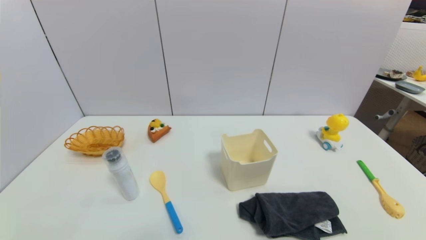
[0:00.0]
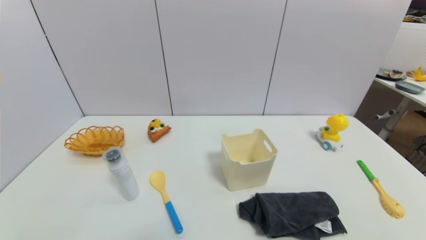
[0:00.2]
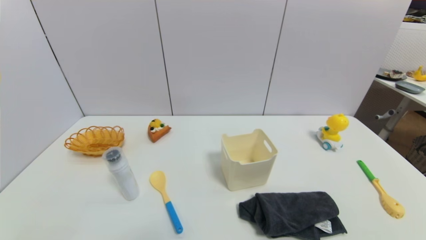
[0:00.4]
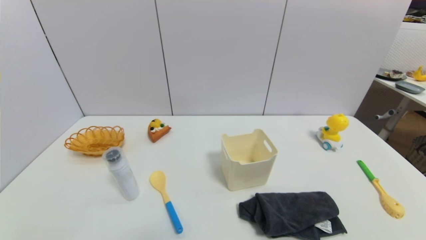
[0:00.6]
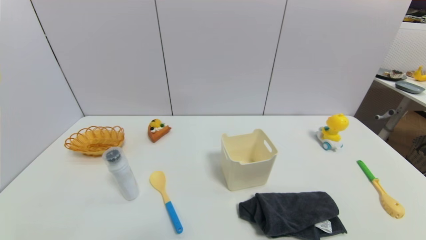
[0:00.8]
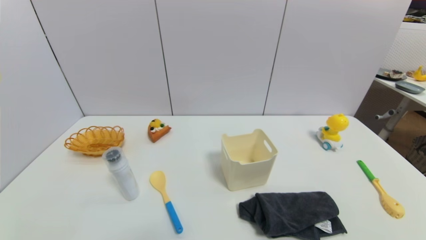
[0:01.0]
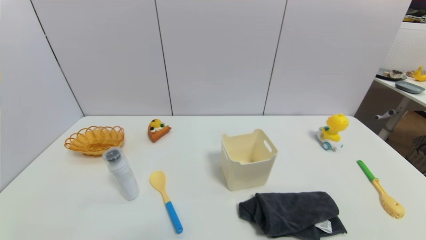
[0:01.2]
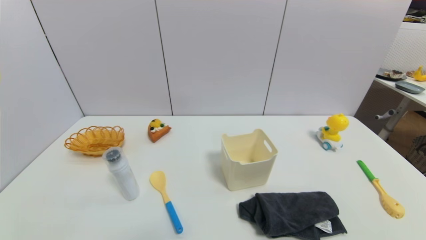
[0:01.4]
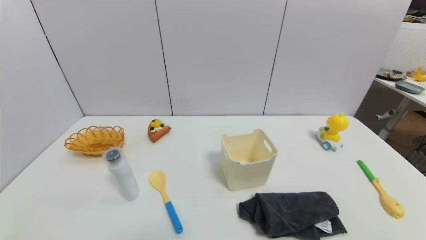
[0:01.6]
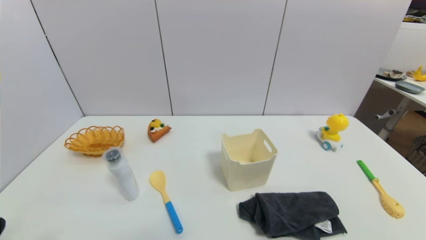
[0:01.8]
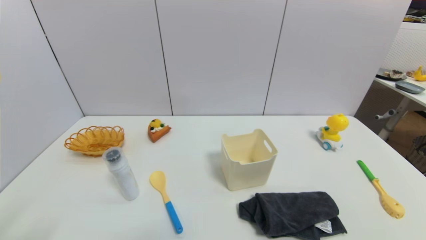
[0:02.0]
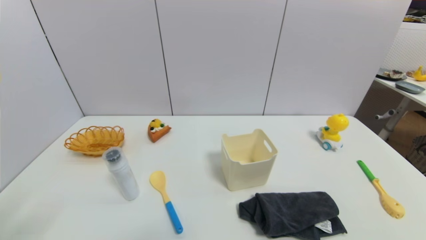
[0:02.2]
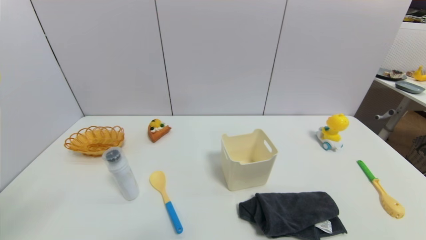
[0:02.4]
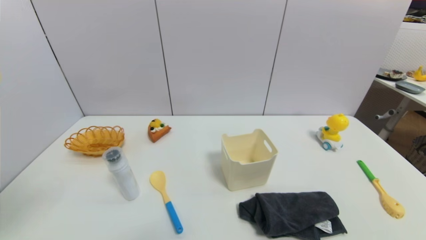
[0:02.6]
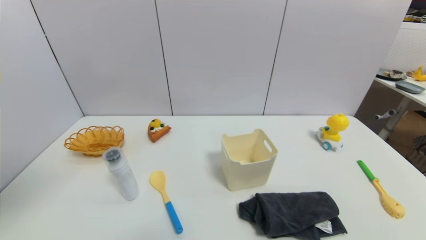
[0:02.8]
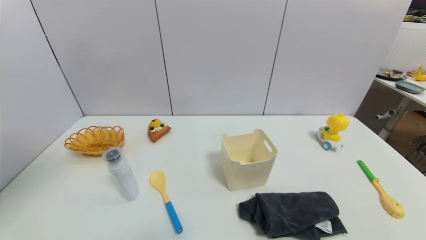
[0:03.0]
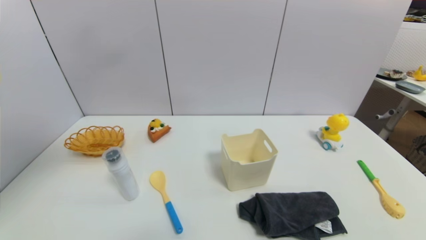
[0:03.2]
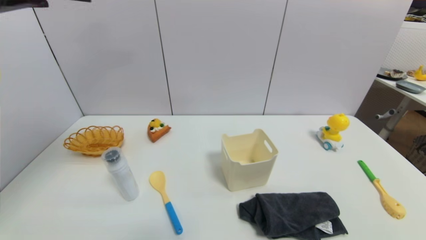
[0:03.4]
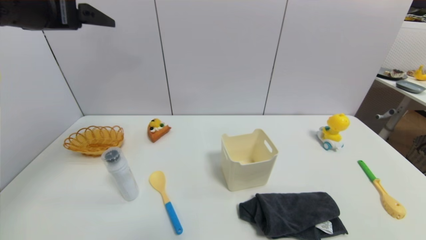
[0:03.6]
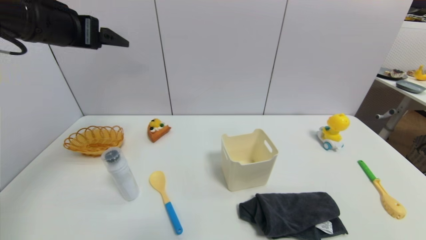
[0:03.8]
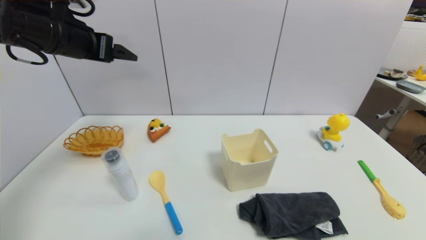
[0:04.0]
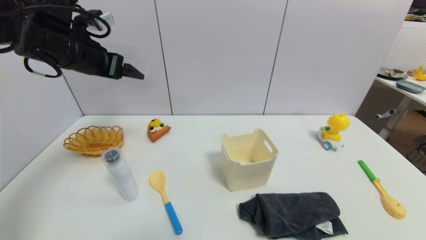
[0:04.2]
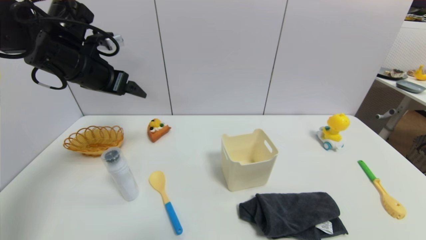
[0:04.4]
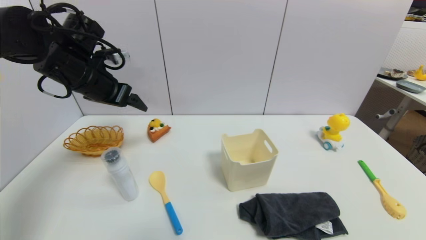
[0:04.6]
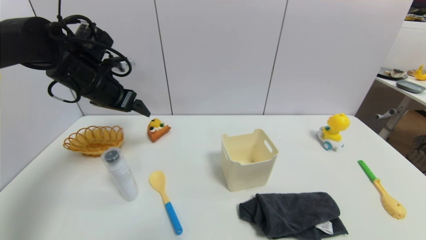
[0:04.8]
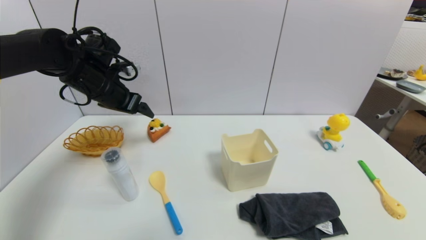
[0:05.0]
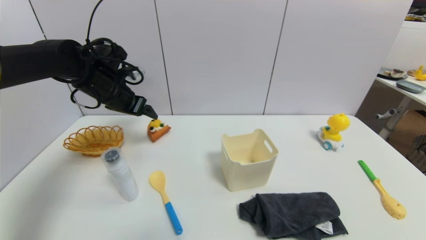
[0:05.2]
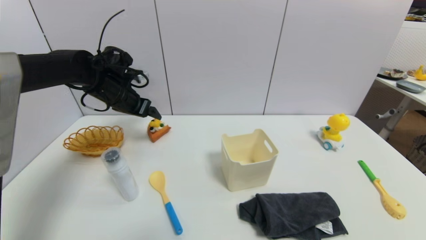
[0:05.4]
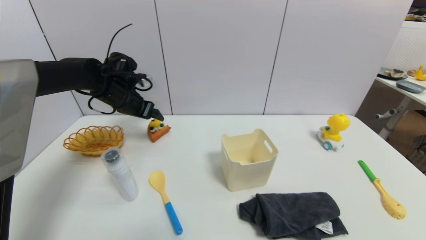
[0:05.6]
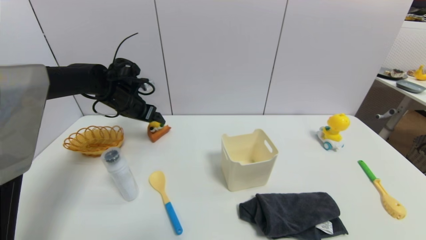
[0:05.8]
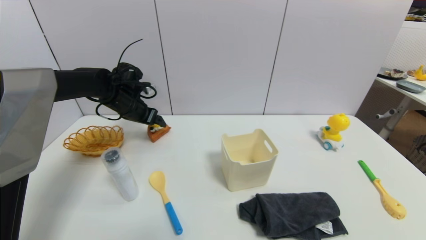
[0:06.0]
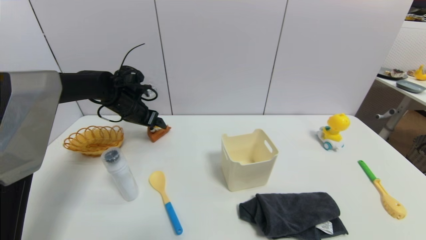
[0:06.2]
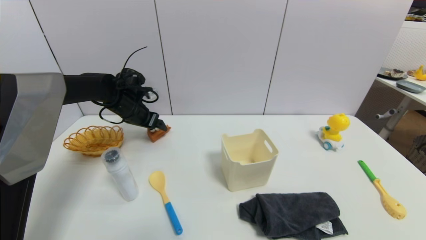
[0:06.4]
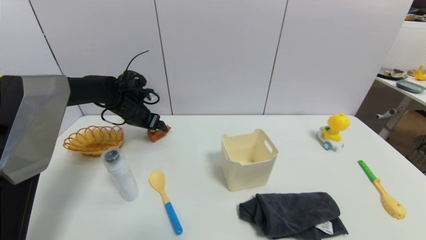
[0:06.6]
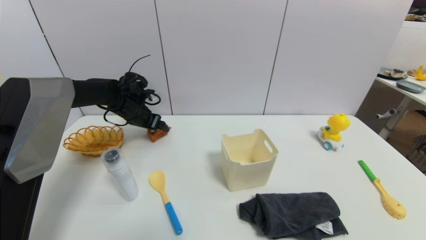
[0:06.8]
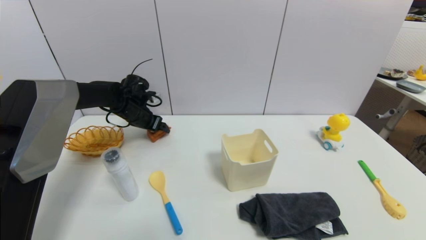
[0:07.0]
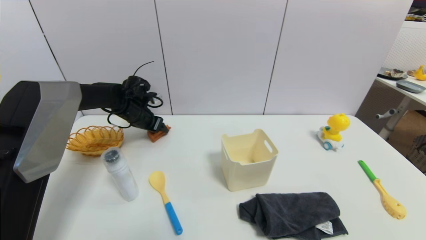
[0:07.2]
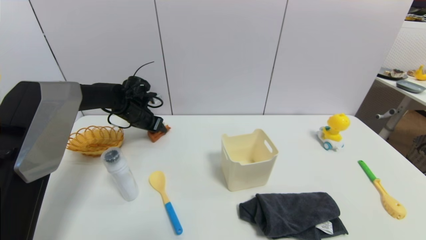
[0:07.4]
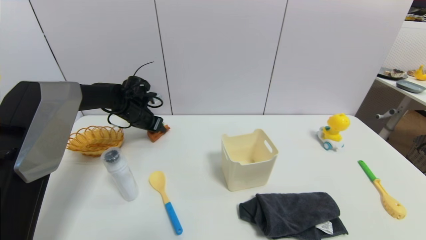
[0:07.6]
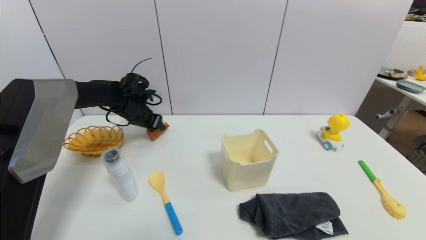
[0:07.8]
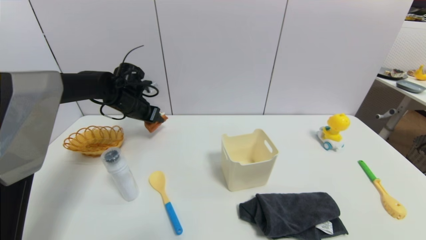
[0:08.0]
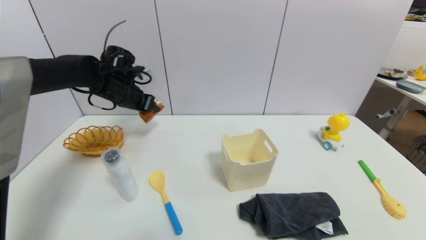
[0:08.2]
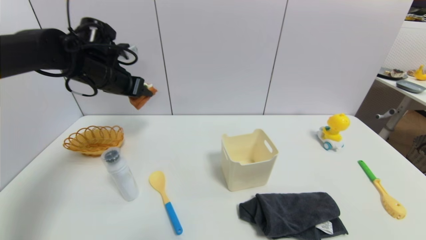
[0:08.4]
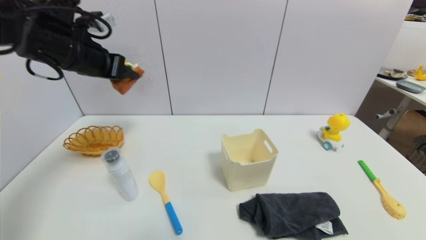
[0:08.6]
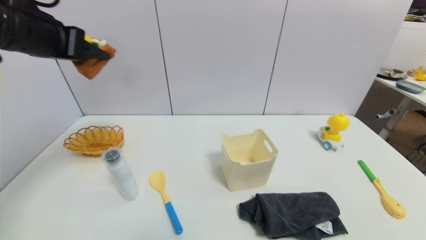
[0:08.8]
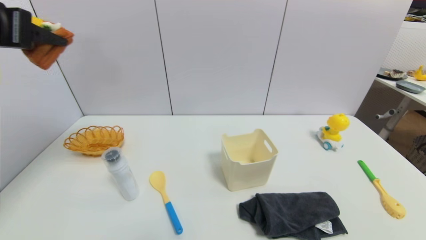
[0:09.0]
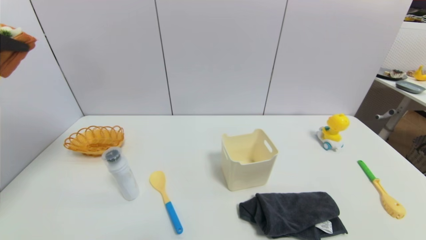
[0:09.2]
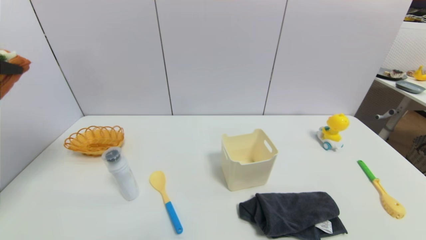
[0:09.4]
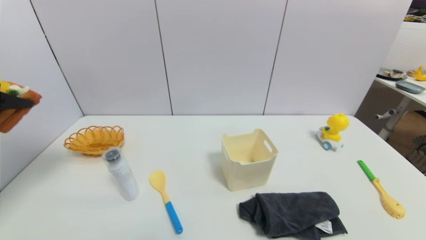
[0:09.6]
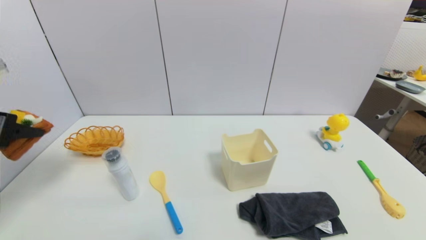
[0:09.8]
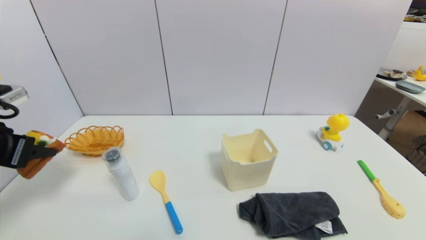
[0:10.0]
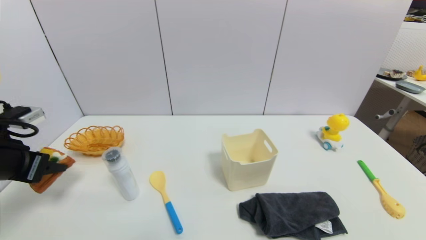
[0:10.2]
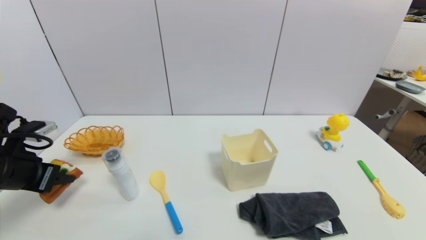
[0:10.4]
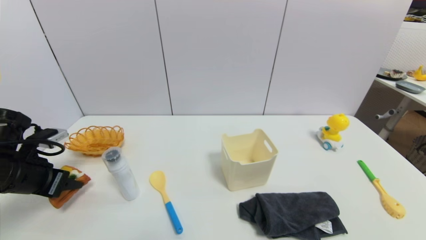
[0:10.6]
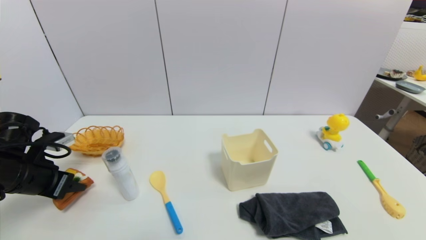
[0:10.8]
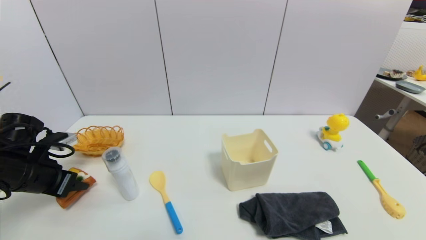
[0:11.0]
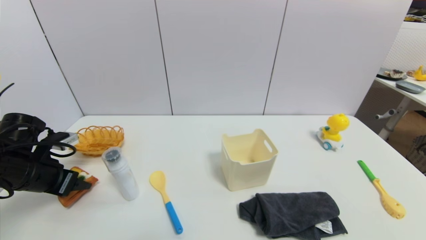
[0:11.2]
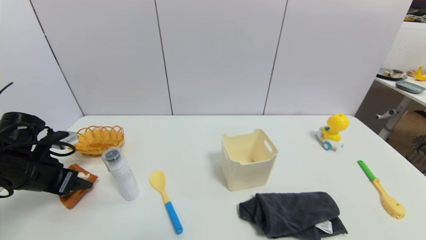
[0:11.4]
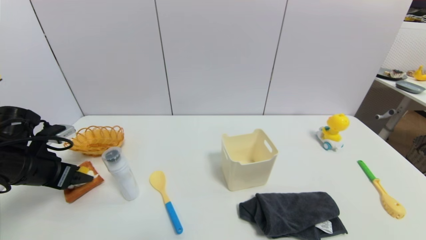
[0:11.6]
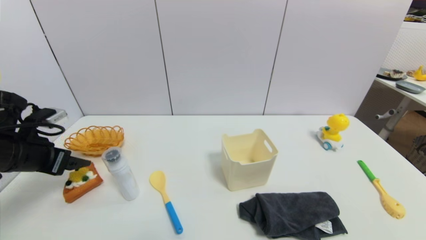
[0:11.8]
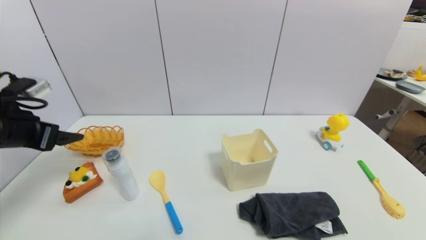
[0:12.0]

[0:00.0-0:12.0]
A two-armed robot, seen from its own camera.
Step, 0:01.8 to 0:07.8: Grasp the pizza with left gripper.
Step, 0:08.0 to 0:11.6: Place the pizza on the table with left gripper.
0:01.6 to 0:03.0: The left gripper travels upward by approximately 30 cm.
0:03.0 to 0:04.4: The left gripper travels forward and downward by some 25 cm.
0:04.4 to 0:06.0: The left gripper moves downward and forward, some 15 cm.
0:06.0 to 0:07.6: The left gripper closes.
0:07.6 to 0:09.0: The left gripper shifts about 35 cm upward and backward.
0:09.0 to 0:10.4: The left gripper moves downward, some 20 cm.
0:10.4 to 0:12.0: The left gripper travels upward by about 5 cm, and opens up.

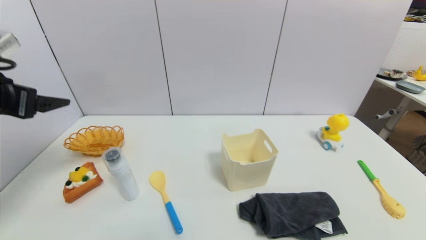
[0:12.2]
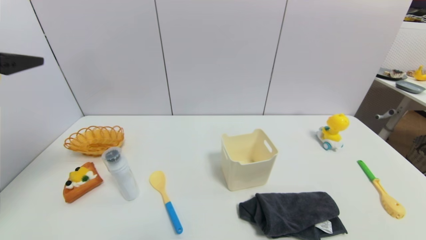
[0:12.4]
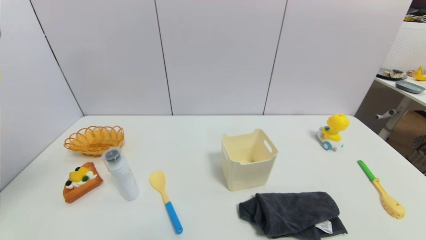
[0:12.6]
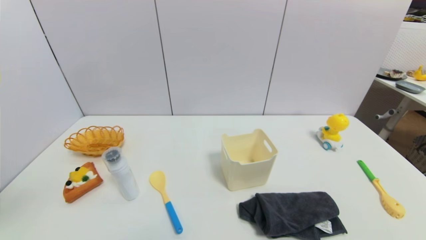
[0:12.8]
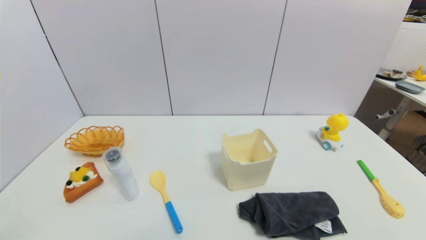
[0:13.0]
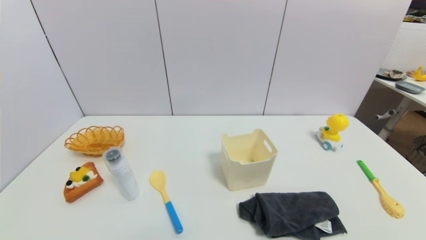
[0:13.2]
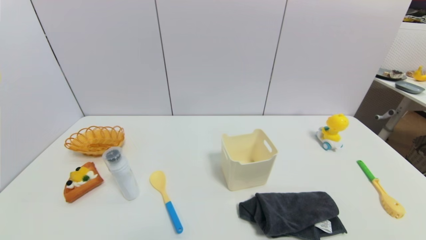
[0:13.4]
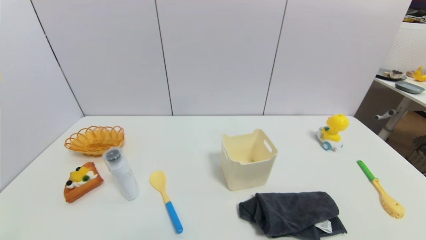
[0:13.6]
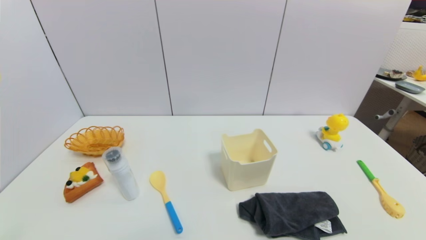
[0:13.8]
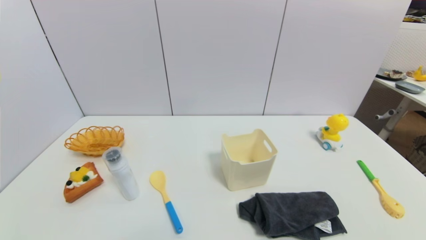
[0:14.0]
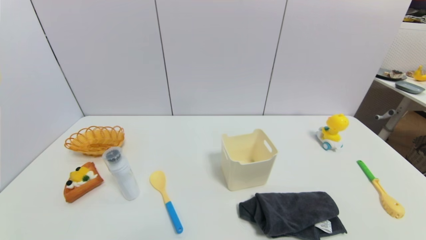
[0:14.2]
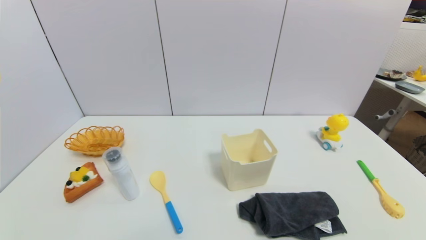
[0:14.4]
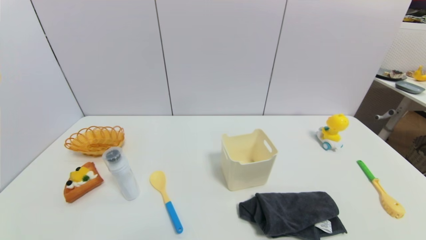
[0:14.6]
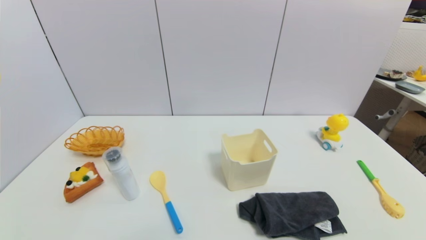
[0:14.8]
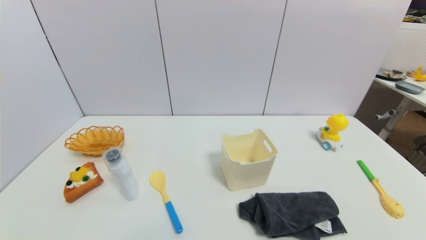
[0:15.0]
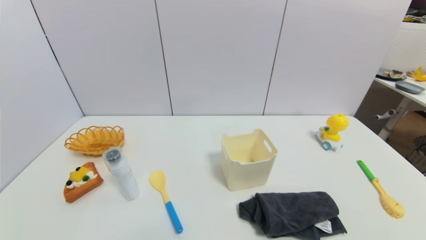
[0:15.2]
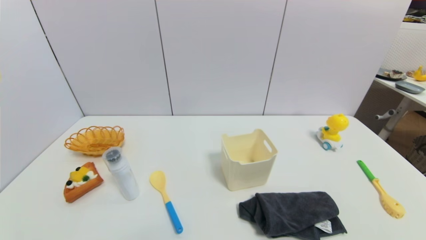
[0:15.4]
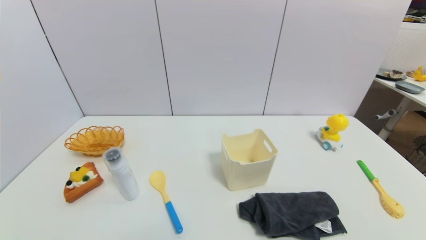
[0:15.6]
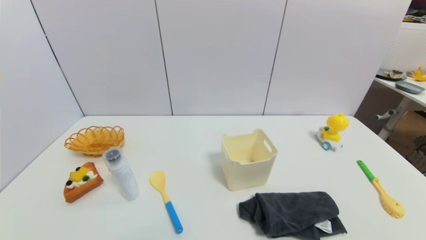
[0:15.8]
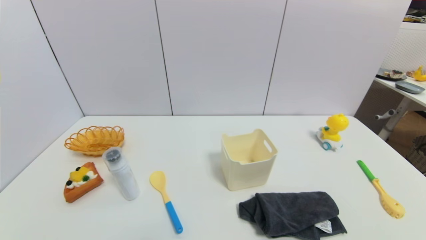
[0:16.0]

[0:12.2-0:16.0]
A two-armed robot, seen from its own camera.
0:12.2 to 0:13.4: The left gripper goes roughly 25 cm backward.
0:14.8 to 0:16.0: The two grippers keep their place.
